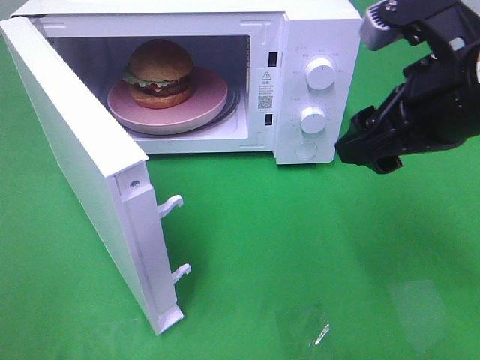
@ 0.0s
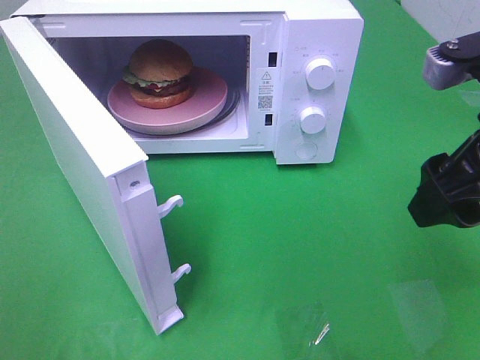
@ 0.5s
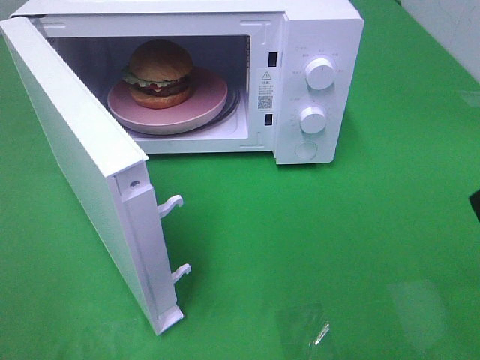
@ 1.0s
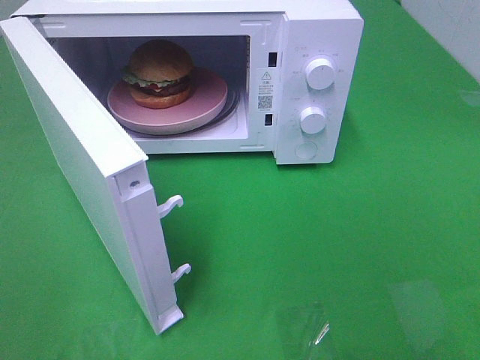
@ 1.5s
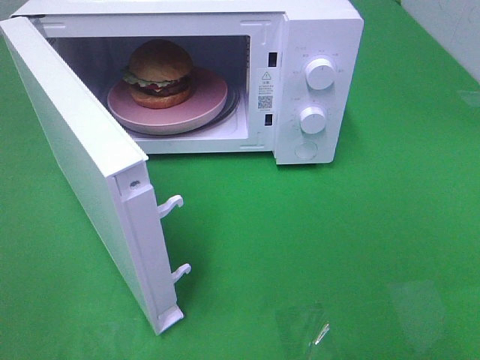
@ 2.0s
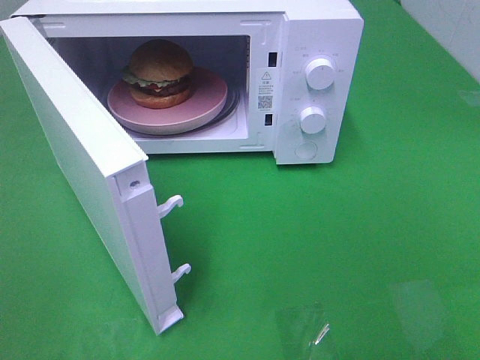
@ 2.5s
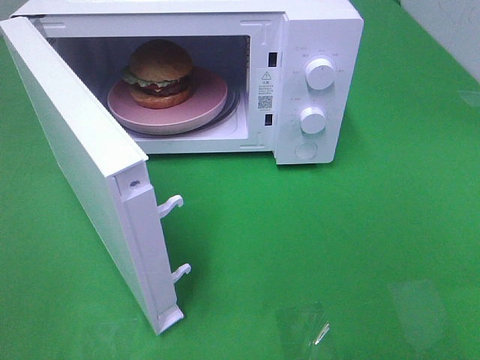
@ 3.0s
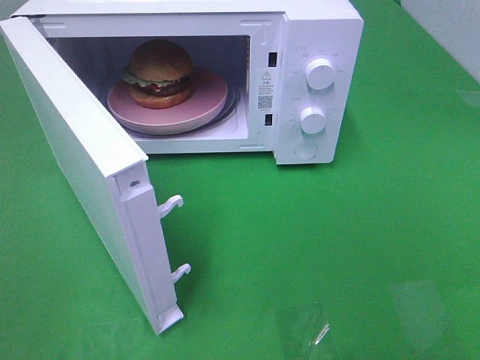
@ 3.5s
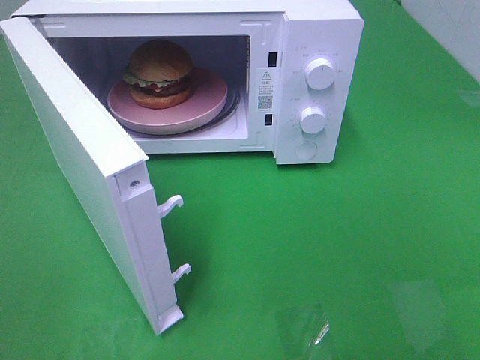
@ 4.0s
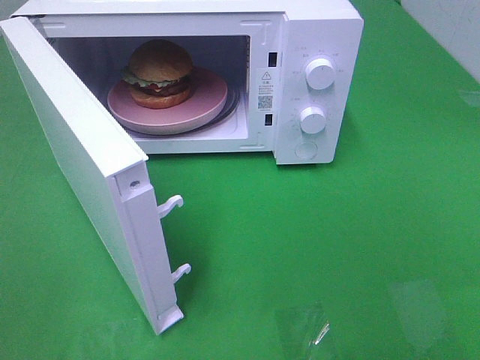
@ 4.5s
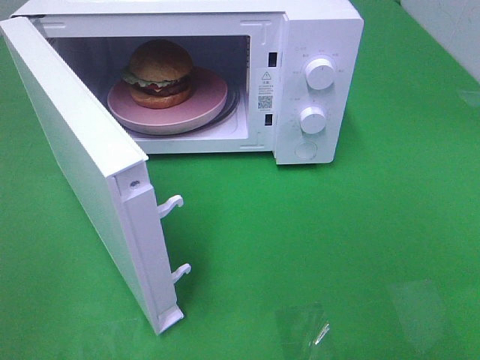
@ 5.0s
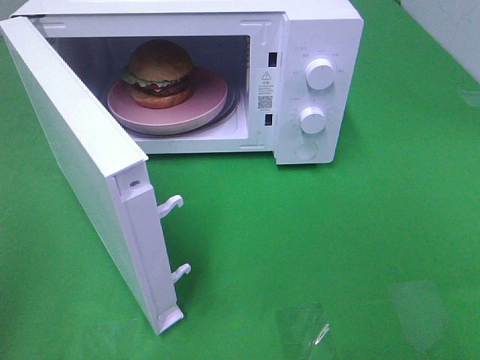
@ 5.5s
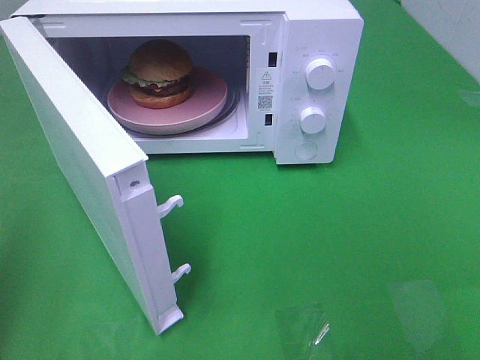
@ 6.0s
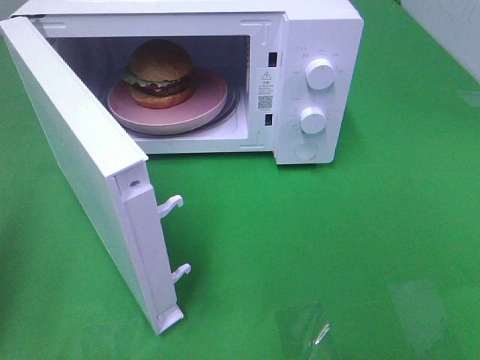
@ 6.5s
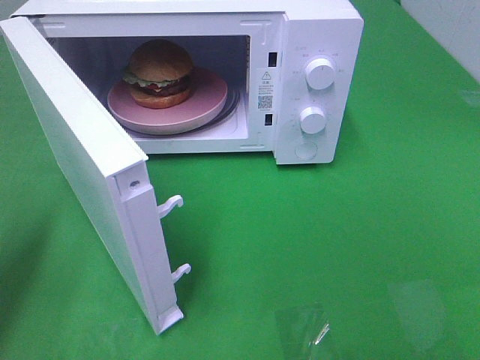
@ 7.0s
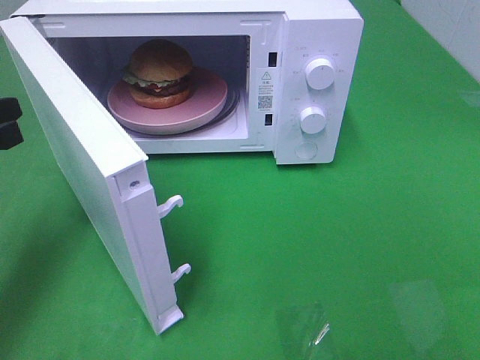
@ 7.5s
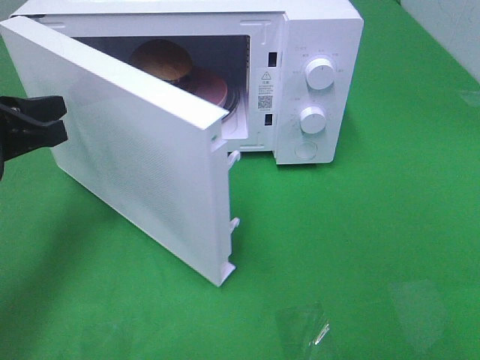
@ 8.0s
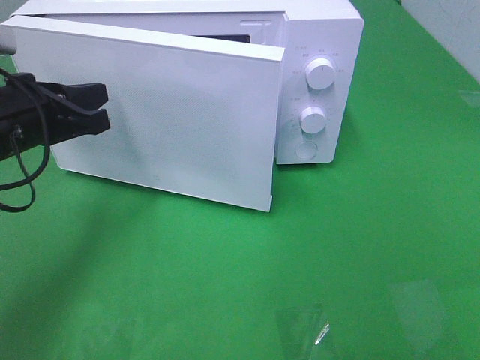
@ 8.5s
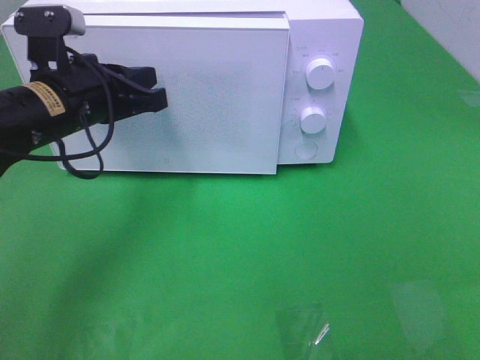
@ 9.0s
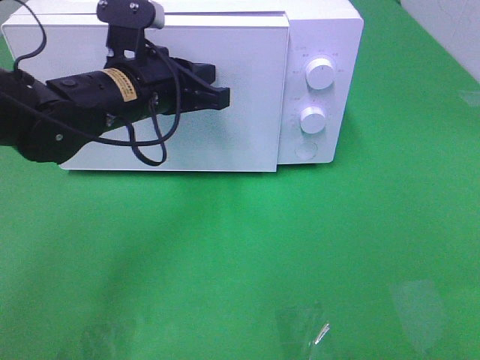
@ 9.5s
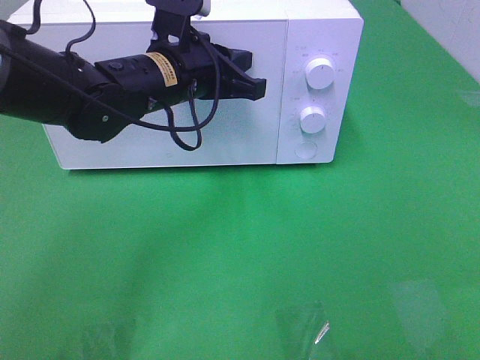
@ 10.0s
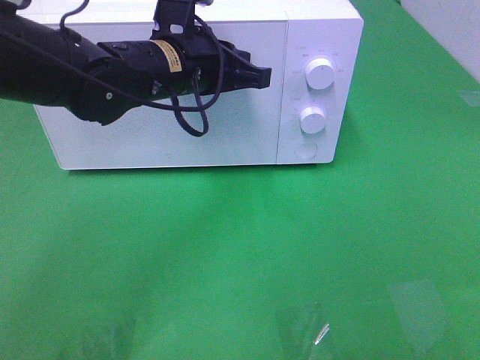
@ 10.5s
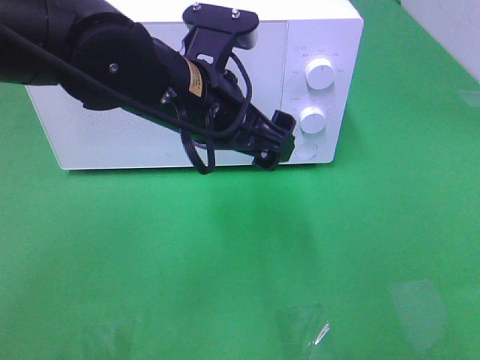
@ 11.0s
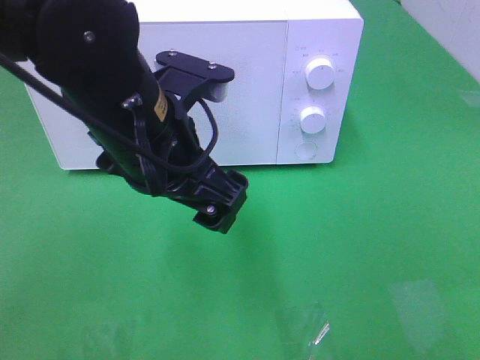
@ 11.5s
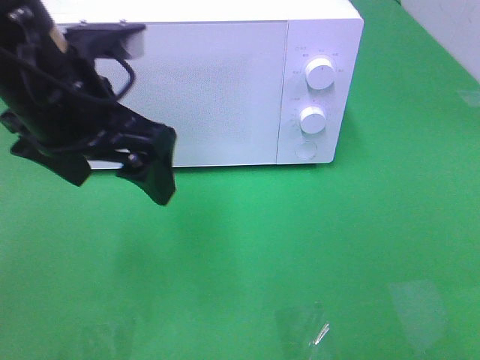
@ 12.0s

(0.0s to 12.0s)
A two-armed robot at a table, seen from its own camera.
Task of the whole recording: Heat the burger.
Step, 0.0s - 10.5s: Left hand: close the microwave door.
0.0s - 2.0s: The right gripper moves backward and to the right, roughly 25 cm.
6.0s - 8.0s: The left gripper heads forward, downward and to the right, covering approximately 20 cm.
8.0s - 10.0s: The left gripper moves to the right and forward, roughly 20 cm.
10.0s - 12.0s: The left gripper moves backward, upward and to the left, about 15 cm, and opens up.

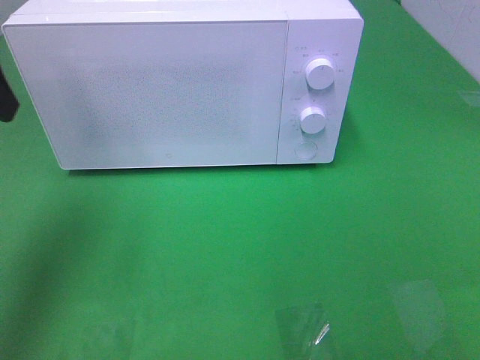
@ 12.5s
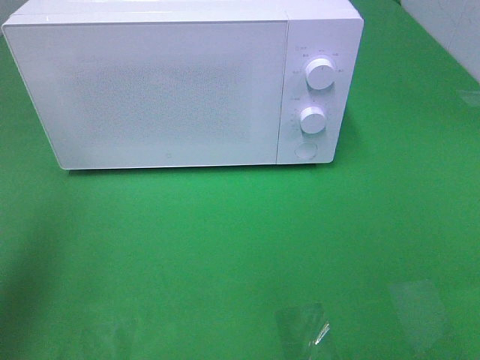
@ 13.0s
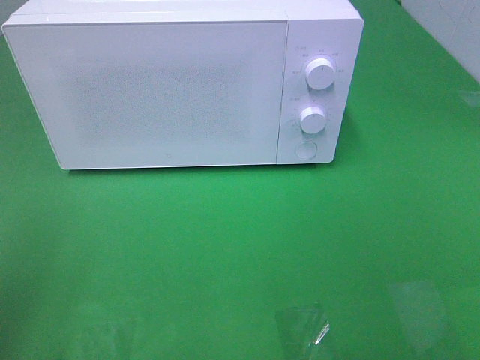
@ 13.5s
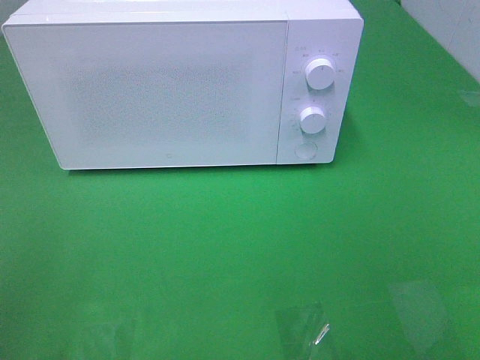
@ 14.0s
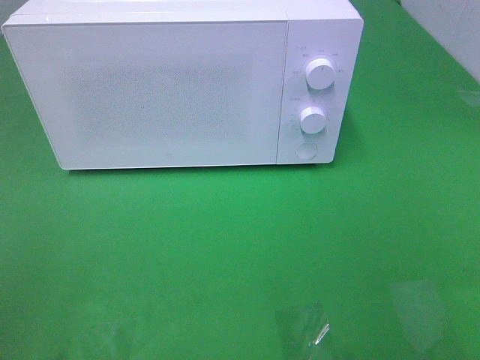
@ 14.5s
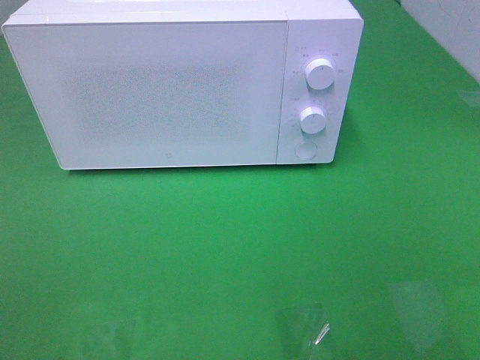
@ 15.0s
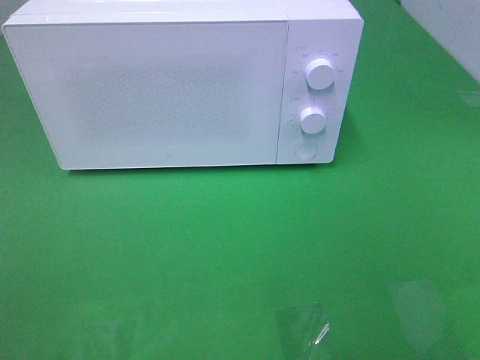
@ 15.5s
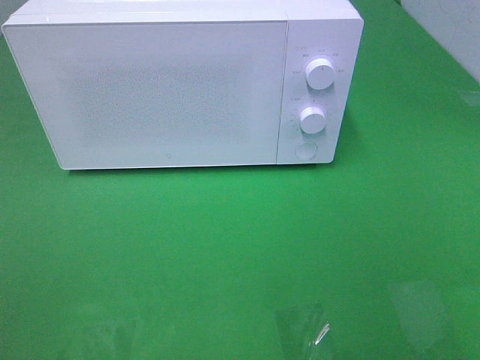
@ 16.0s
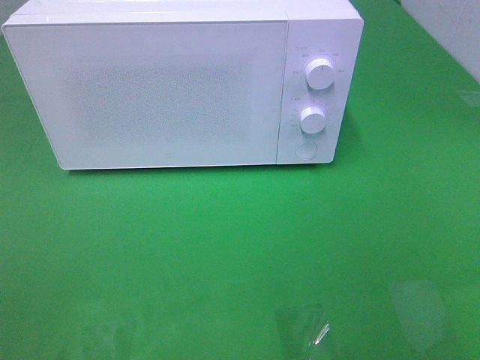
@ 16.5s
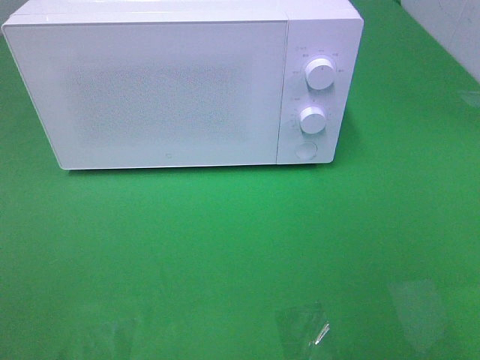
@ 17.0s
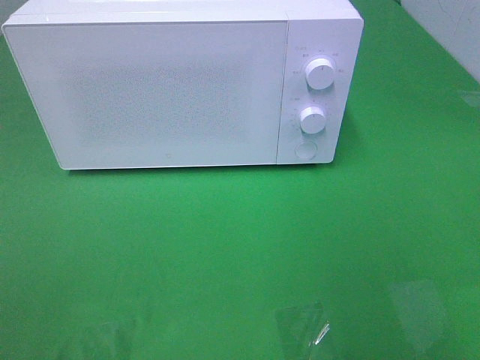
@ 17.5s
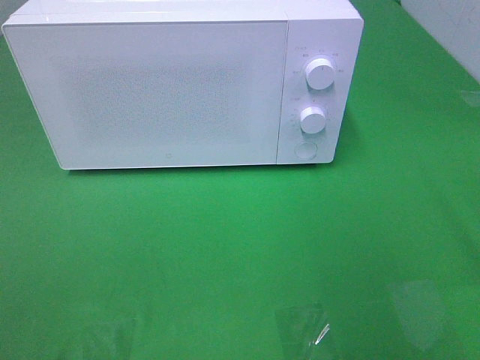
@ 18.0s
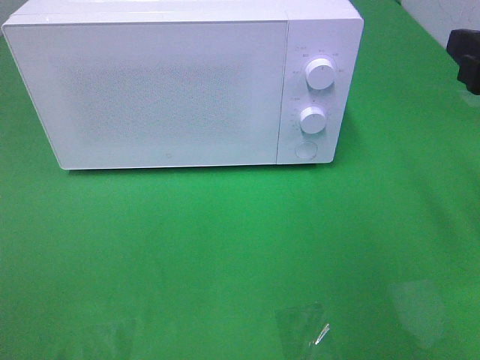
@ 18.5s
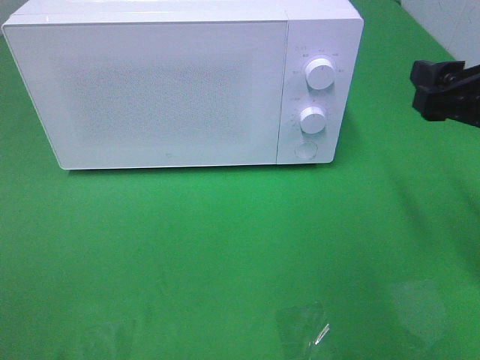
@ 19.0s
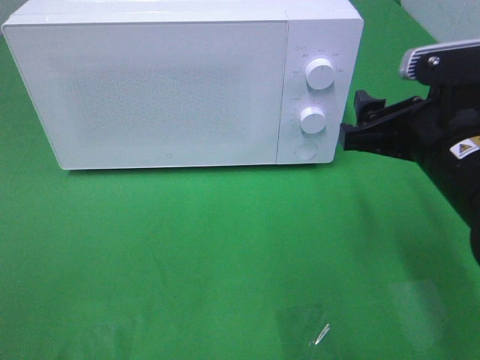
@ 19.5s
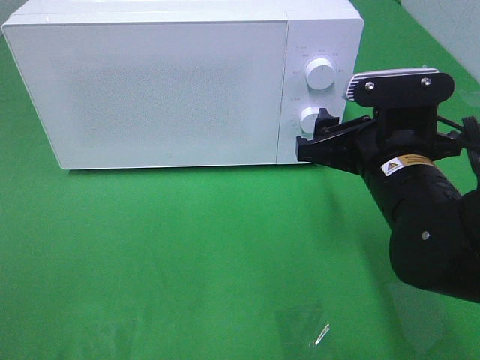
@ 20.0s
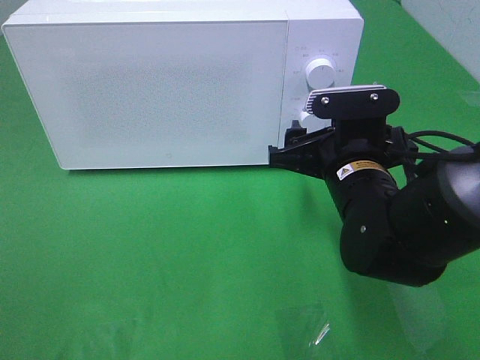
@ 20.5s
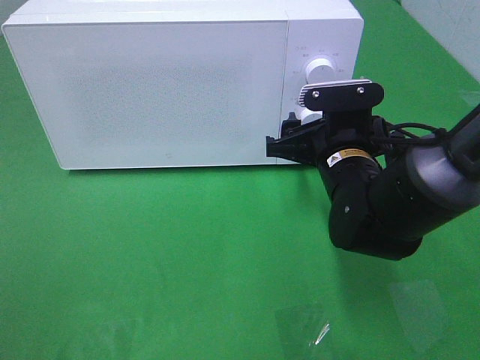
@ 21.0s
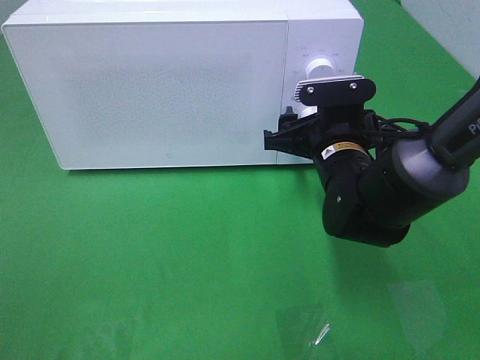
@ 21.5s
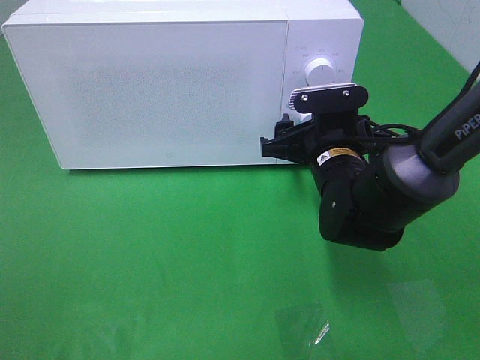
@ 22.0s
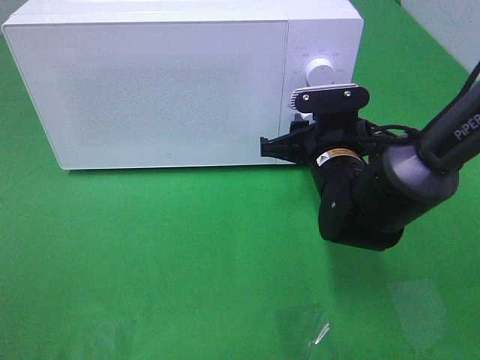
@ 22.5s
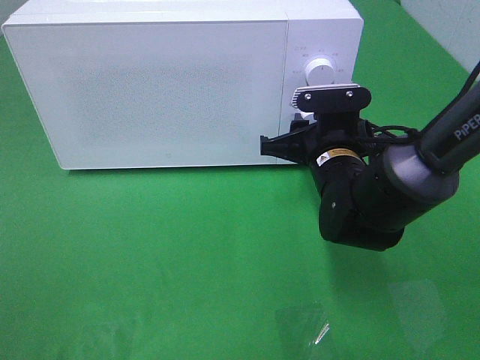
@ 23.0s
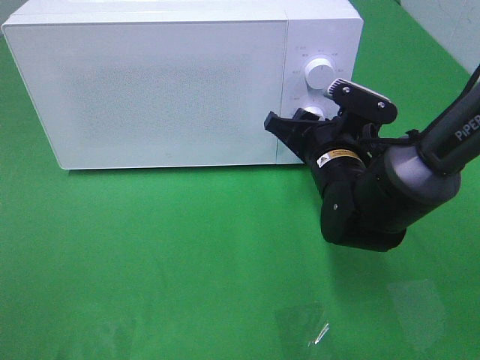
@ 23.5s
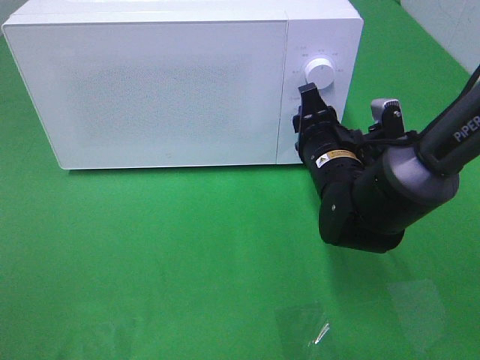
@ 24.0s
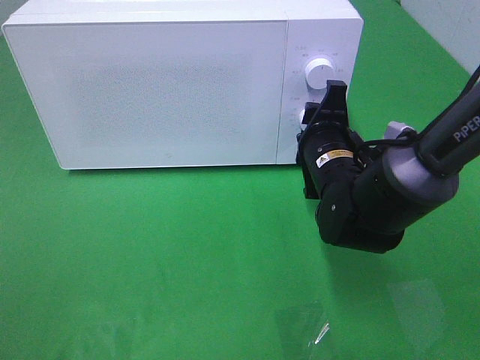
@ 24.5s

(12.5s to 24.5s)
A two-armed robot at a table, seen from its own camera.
Task of the whole recording: Heat the burger.
12.5s - 14.5s: The left gripper shifts roughly 20 cm backward.
16.5s - 18.5s: The right gripper shifts about 20 cm forward.
18.5s - 20.5s: The right gripper moves to the left and downward, some 20 cm.
20.5s - 22.5s: The right gripper moves forward, some 5 cm, and closes its fingers.

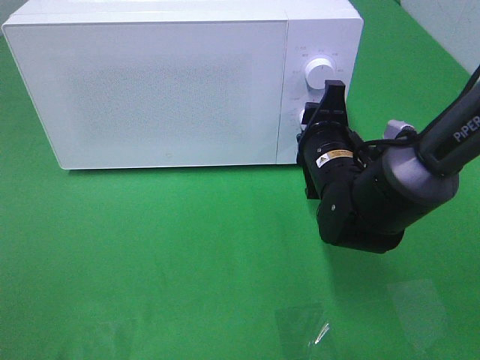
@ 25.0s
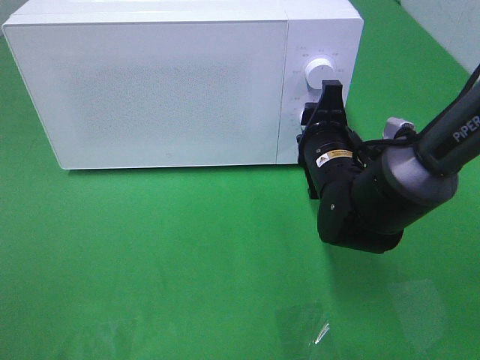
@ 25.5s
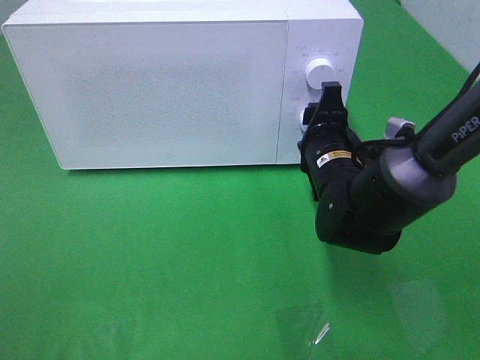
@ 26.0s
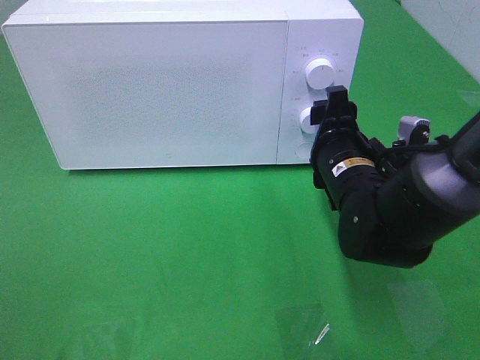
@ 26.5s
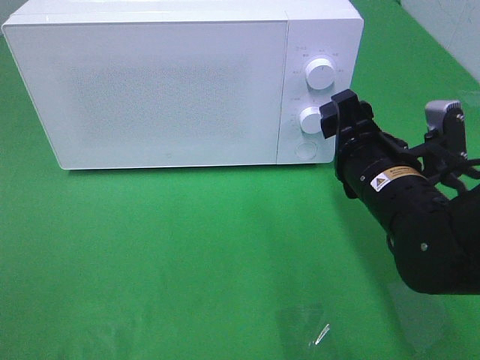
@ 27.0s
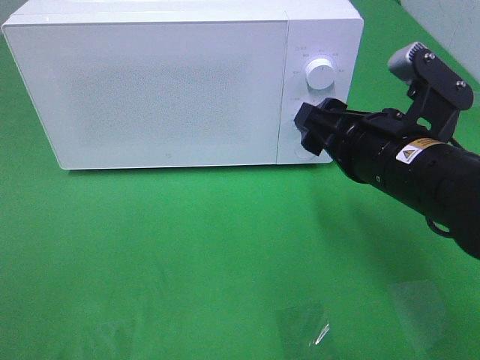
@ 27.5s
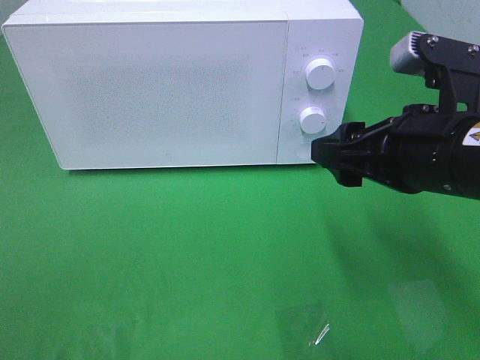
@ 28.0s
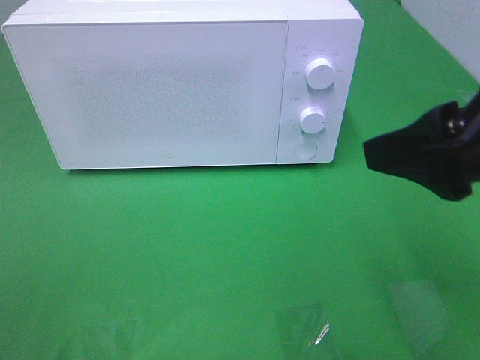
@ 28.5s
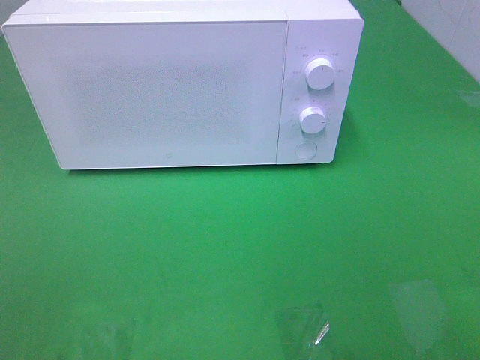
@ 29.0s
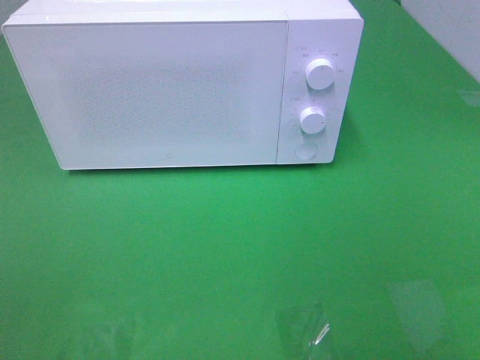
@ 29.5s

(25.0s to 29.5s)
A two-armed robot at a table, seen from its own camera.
Task of the whole recording: Heat the burger.
25.0s - 27.0s: The right gripper travels backward by approximately 5 cm.
27.0s - 29.5s: The right gripper heads backward, upward and to the right, covering approximately 35 cm.
